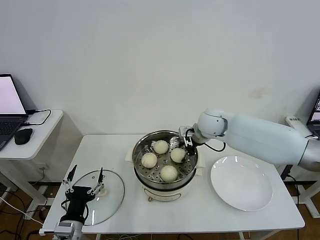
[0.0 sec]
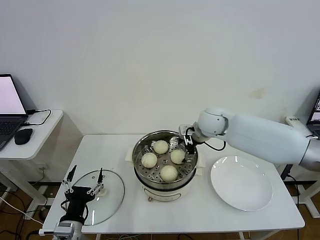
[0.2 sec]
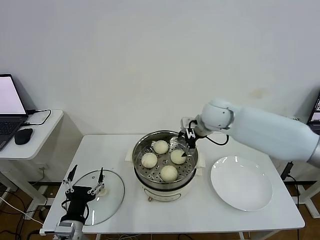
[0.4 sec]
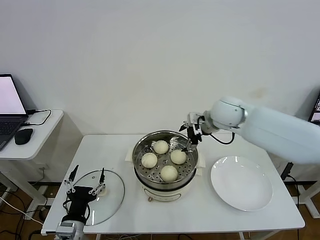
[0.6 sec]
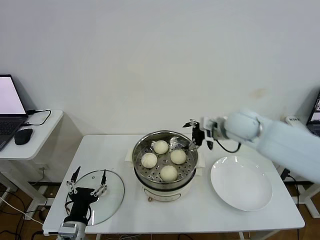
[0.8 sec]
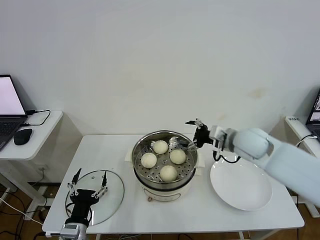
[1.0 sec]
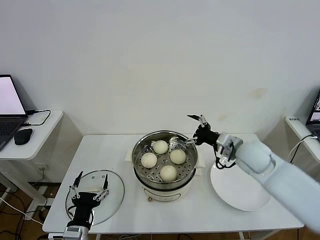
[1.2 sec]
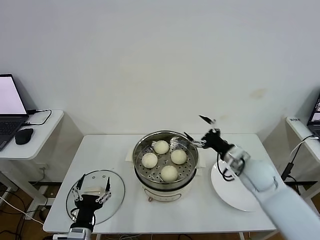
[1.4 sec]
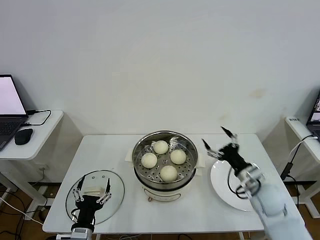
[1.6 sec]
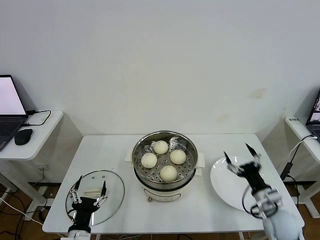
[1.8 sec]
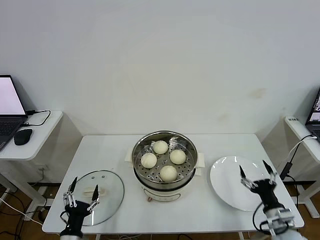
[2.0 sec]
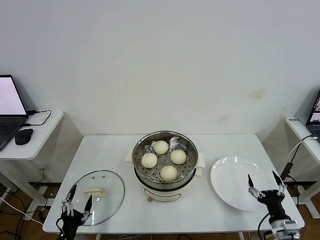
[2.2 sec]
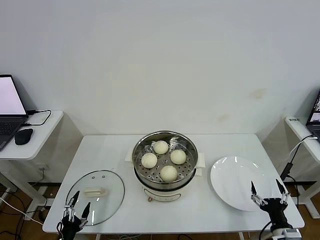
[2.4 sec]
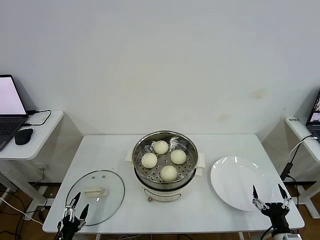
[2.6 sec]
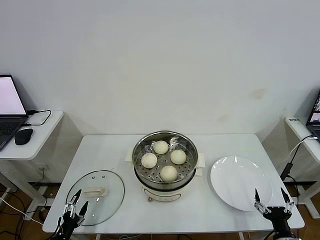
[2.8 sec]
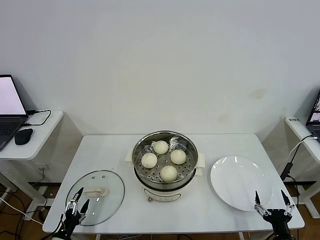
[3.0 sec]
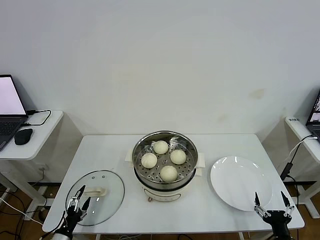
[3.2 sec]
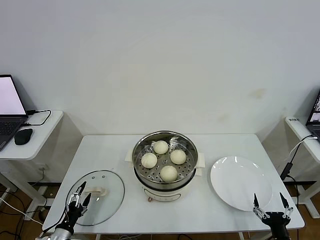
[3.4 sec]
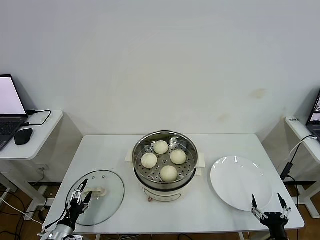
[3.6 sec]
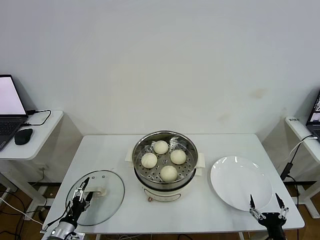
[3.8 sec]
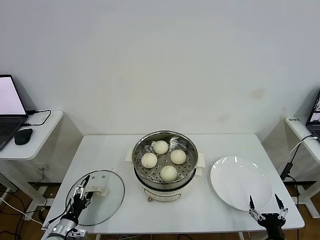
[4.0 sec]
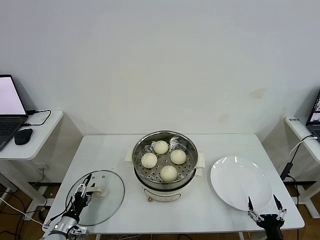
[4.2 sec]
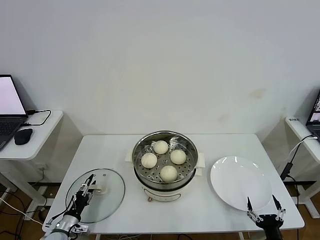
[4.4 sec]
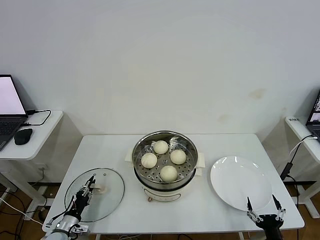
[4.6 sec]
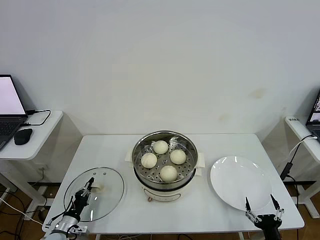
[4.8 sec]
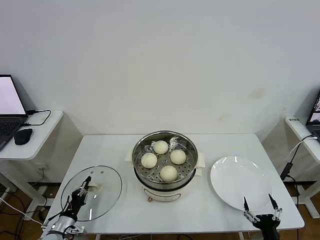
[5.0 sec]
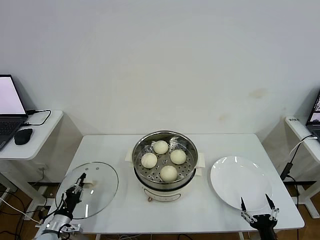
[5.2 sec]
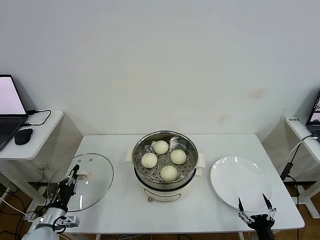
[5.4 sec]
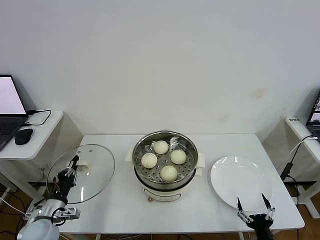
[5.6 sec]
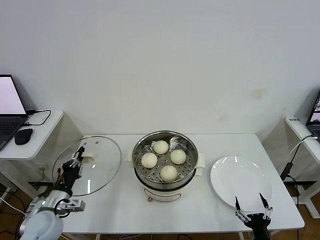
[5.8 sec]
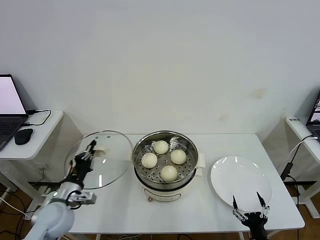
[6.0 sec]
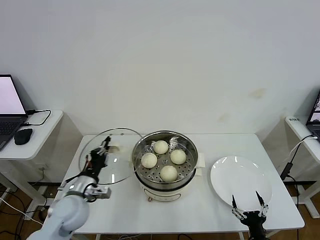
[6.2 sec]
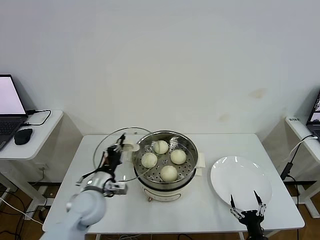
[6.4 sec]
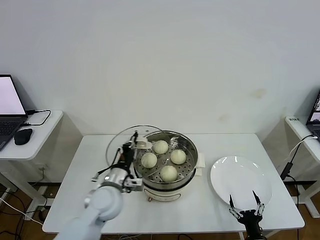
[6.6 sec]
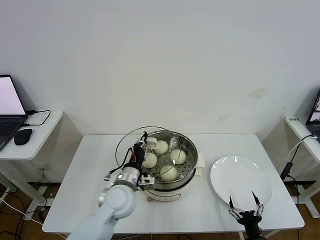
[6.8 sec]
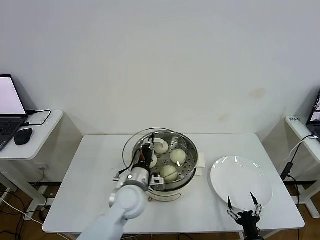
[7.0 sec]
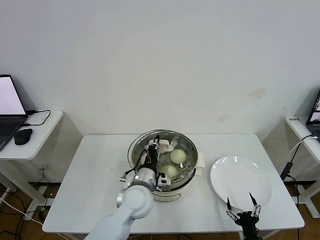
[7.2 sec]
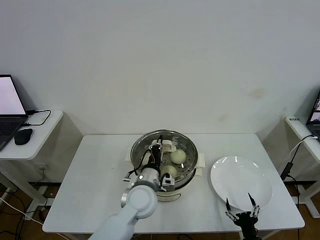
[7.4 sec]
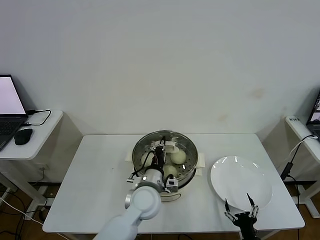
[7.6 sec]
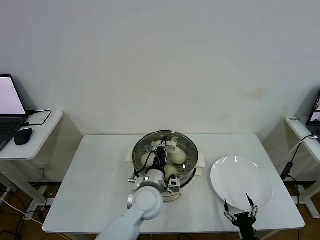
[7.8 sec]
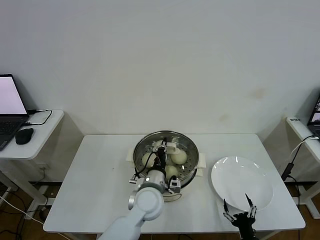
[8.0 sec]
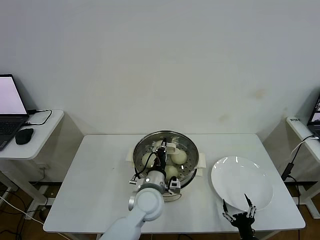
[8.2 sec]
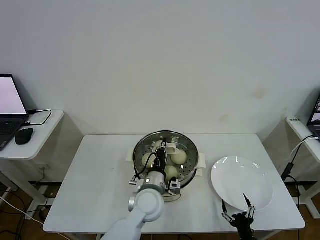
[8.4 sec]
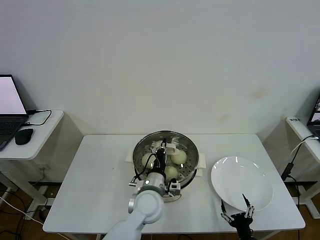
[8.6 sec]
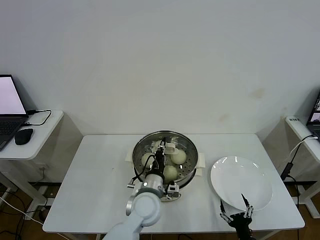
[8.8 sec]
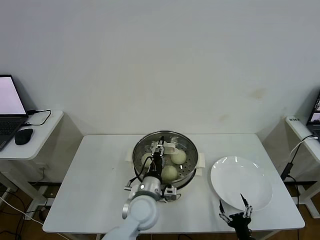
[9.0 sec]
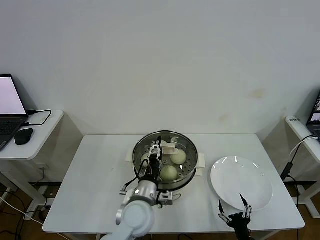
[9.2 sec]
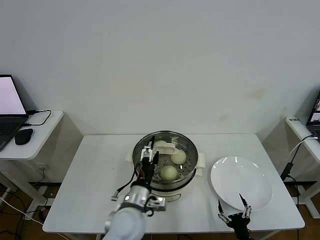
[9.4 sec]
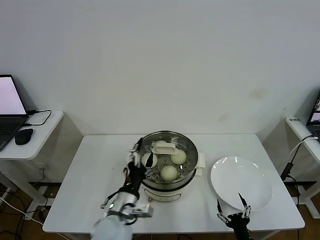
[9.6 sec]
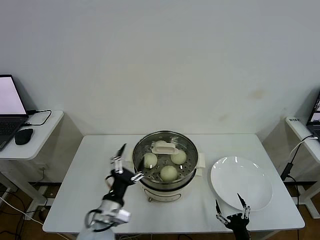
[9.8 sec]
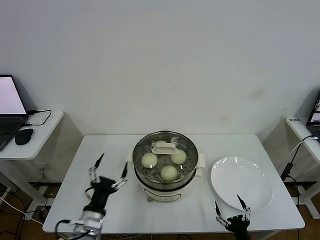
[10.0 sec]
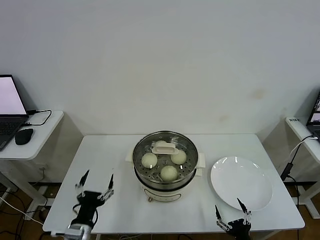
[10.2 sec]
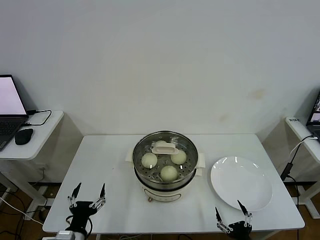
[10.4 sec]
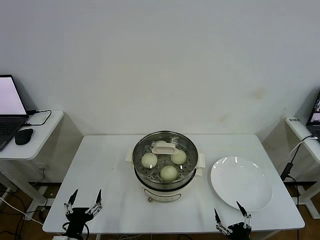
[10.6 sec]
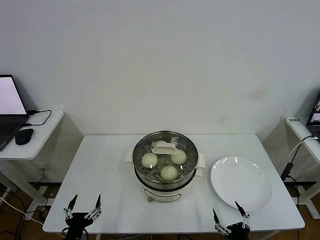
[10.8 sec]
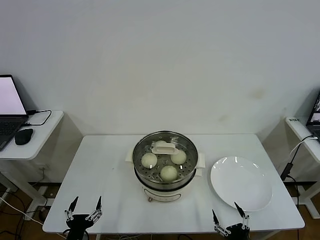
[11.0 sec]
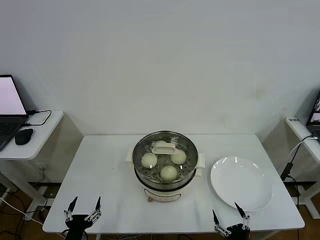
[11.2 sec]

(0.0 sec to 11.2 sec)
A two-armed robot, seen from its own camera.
Step, 0.2 sec - 5.0 sec: Grasp the pot lid with left gripper.
Step, 5.2 sec - 9.2 sec: Place the pot lid on the steamer with left gripper.
0.0 sec - 1.6 sec: The right gripper goes approximately 30 cm backward, to the right and downward, and opens.
1.6 sec - 3.2 sec: The left gripper shifts some 15 cm to the left and downward; the right gripper heads backward and downward, covering some 25 cm.
3.2 sec - 4.8 sec: The left gripper shifts some 5 cm forward, and closes its fingers.
4.8 sec - 6.4 sec: The left gripper is displaced upward and to the right by roughly 25 cm.
6.4 sec - 8.0 sec: The left gripper goes about 20 cm to the right.
8.0 sec - 9.6 sec: The left gripper heads backward and to the left, covering roughly 10 cm, and opens.
9.6 sec - 11.2 sec: The left gripper heads to the left, backward and downward, covering approximately 25 cm. The right gripper changes place by about 5 cm.
